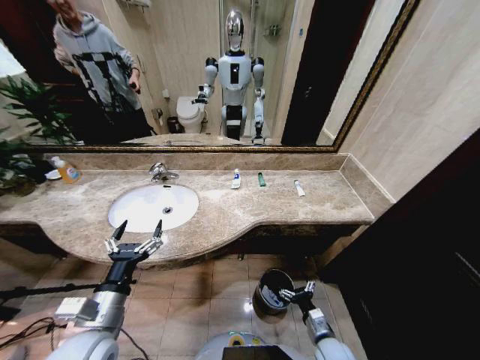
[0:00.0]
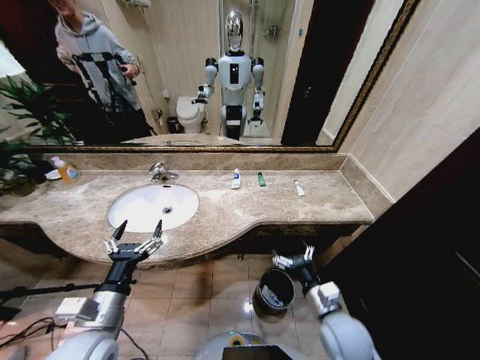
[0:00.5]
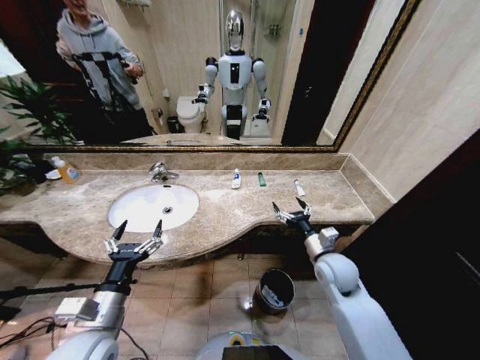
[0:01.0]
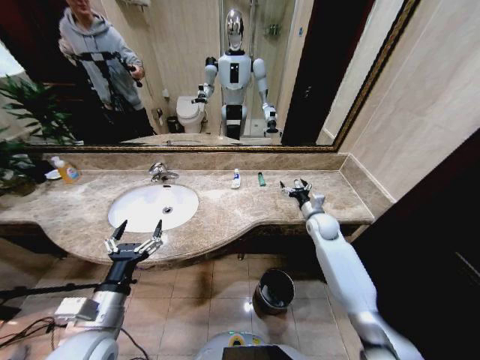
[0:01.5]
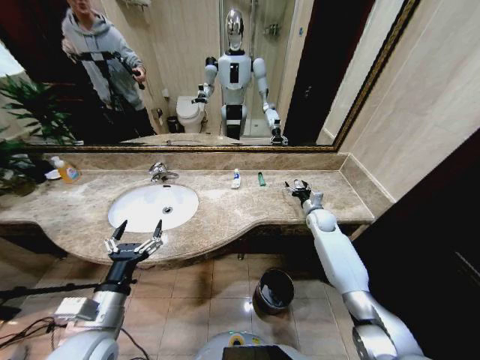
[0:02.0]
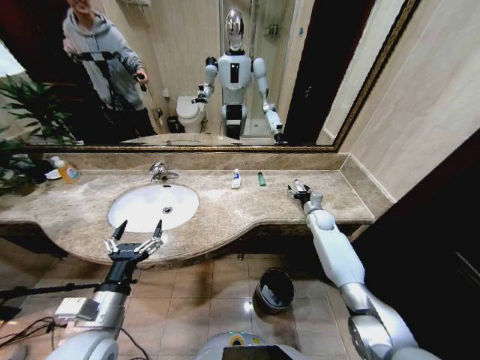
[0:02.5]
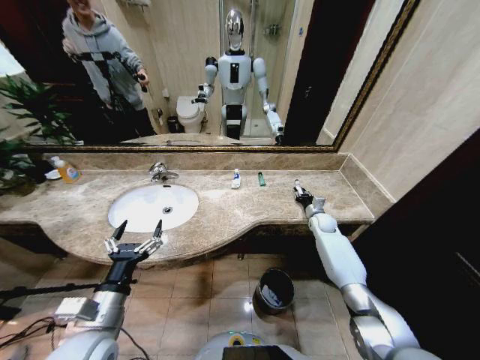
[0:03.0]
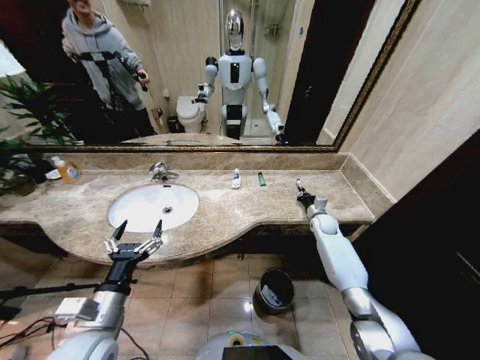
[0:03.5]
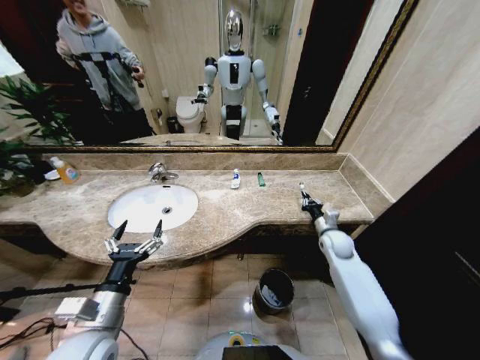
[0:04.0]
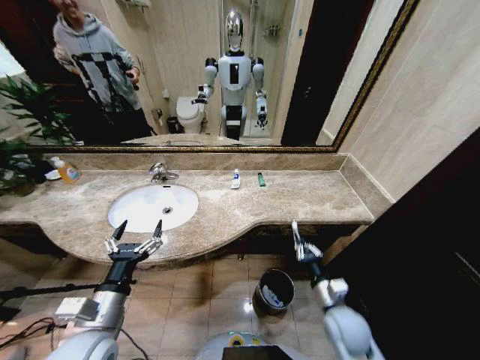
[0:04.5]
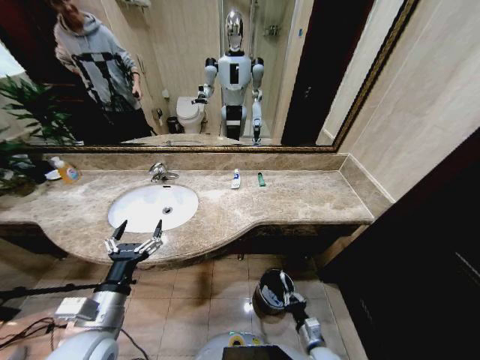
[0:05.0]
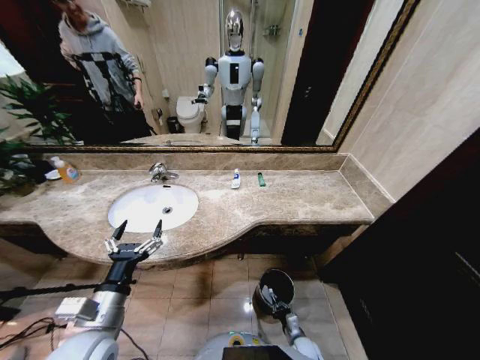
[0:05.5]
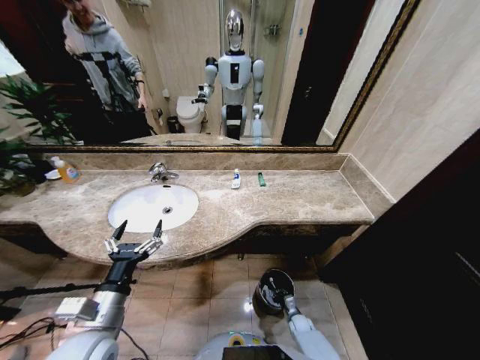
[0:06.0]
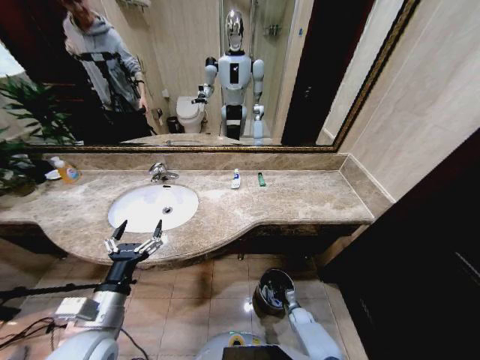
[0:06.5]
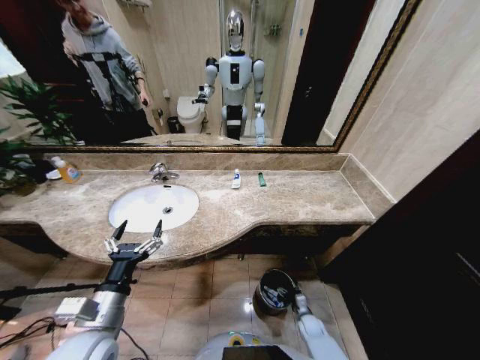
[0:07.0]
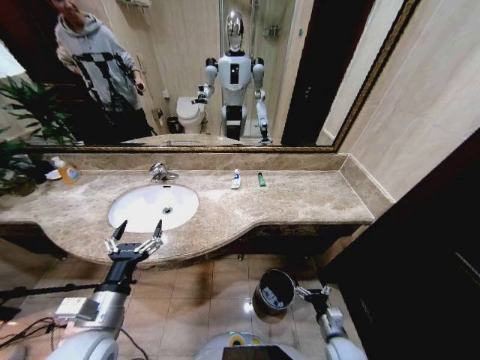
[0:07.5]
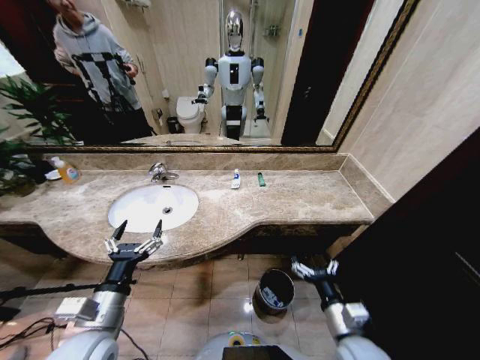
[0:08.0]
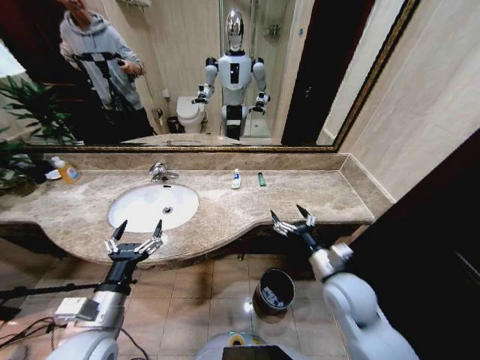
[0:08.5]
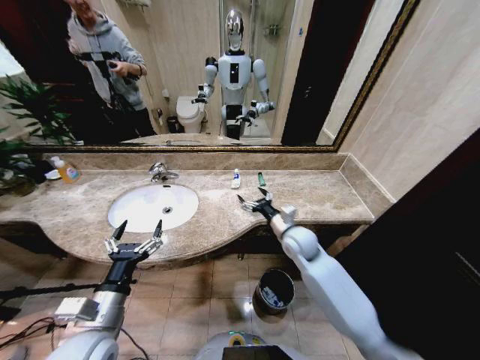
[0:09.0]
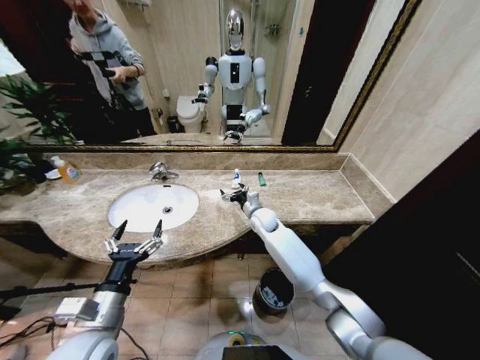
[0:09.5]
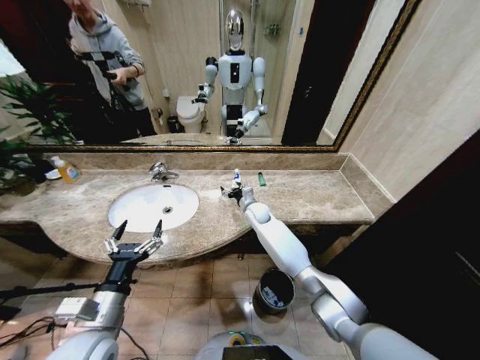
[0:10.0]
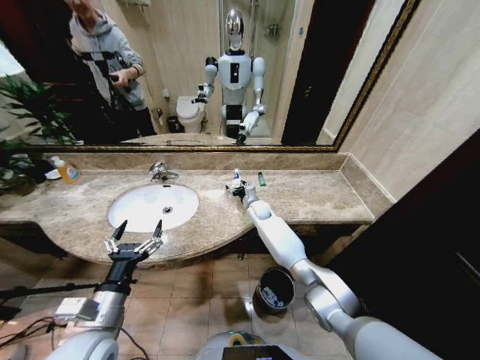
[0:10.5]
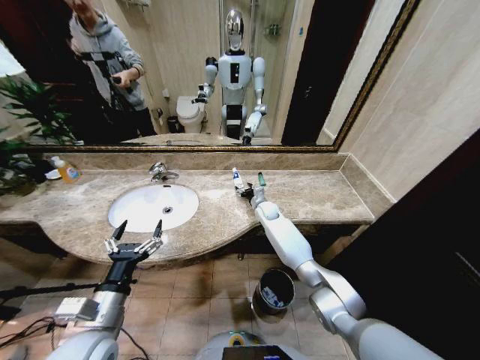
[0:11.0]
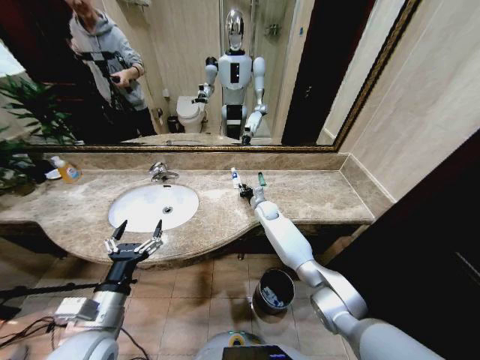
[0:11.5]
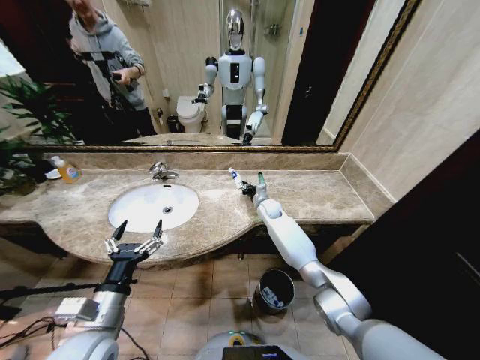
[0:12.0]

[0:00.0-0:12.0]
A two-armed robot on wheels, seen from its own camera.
Task of the whole recording: Pick up the trash from the sink and place it in the trash bin.
0:00.0 to 0:02.0: The right gripper travels forward and upward by about 40 cm.
0:02.0 to 0:04.0: The right gripper shifts some 10 cm backward, and closes.
0:04.0 to 0:06.0: The right gripper heads downward and backward, covering roughly 40 cm.
0:06.0 to 0:08.0: The right gripper heads upward, covering about 35 cm, and opens its fingers.
0:08.0 to 0:10.0: The right gripper moves forward and to the left, about 40 cm.
0:10.0 to 0:12.0: The right gripper travels to the right by about 5 cm, and closes its fingers.

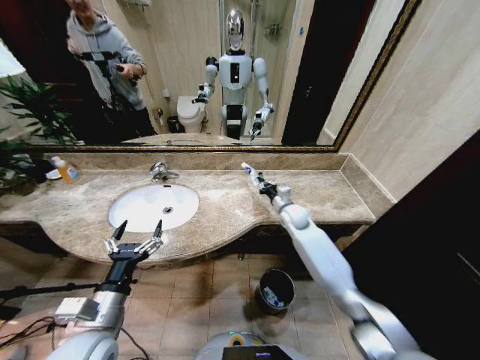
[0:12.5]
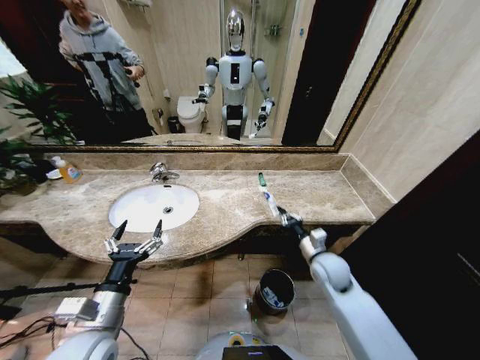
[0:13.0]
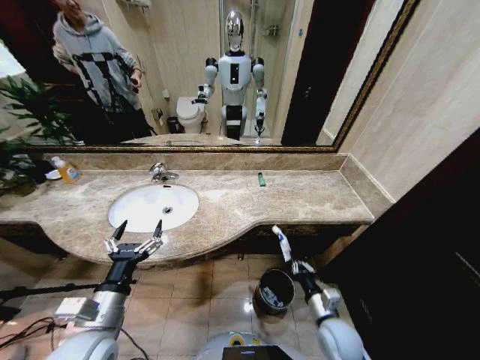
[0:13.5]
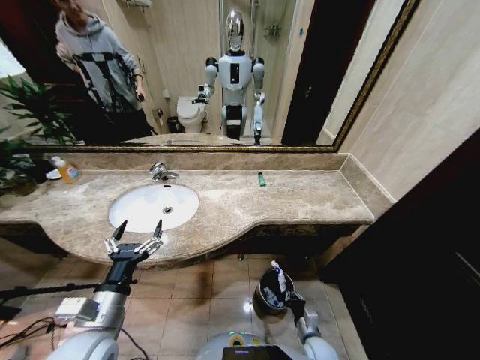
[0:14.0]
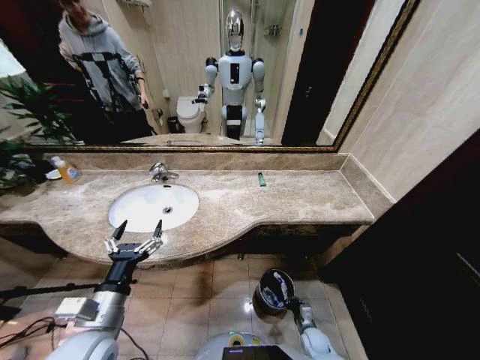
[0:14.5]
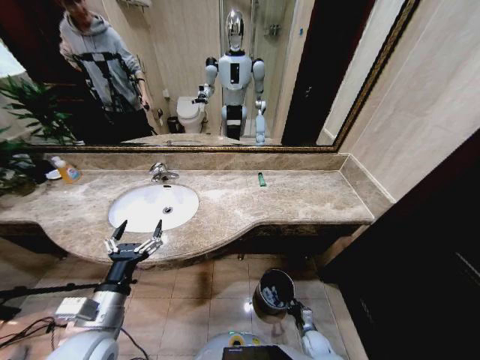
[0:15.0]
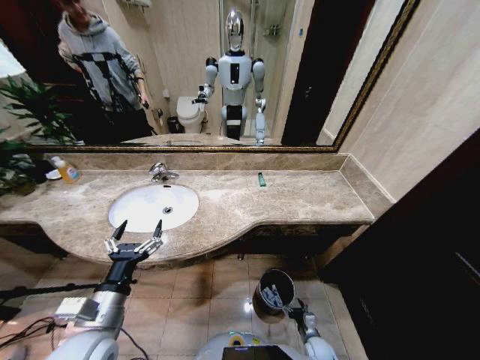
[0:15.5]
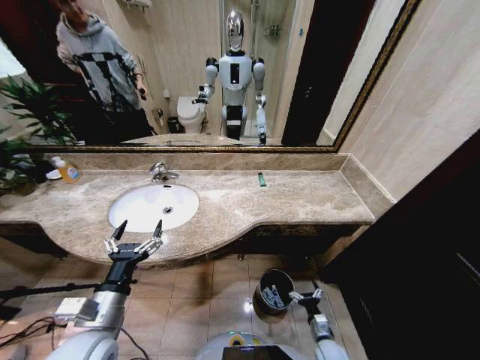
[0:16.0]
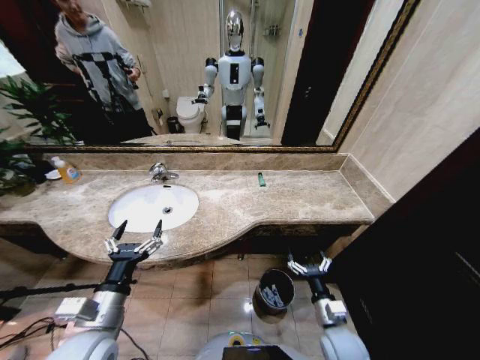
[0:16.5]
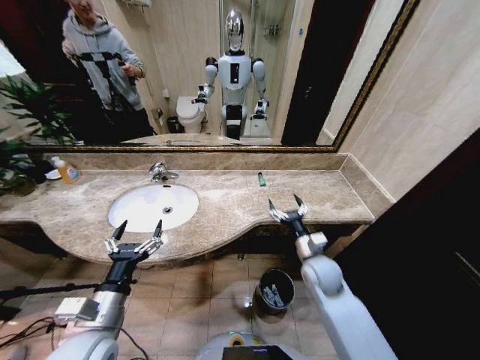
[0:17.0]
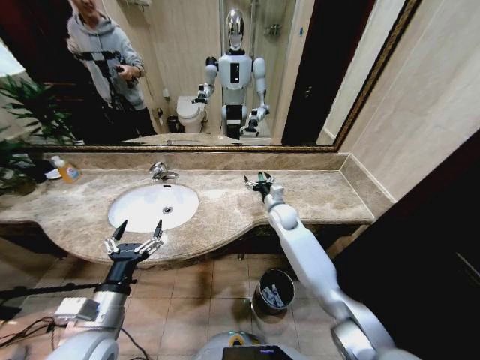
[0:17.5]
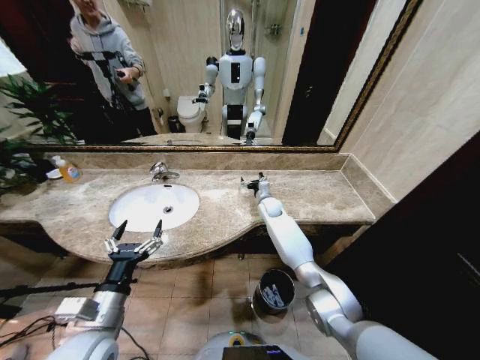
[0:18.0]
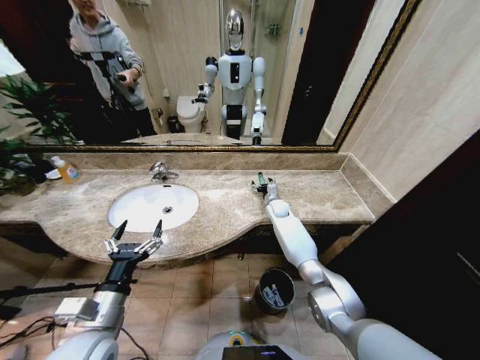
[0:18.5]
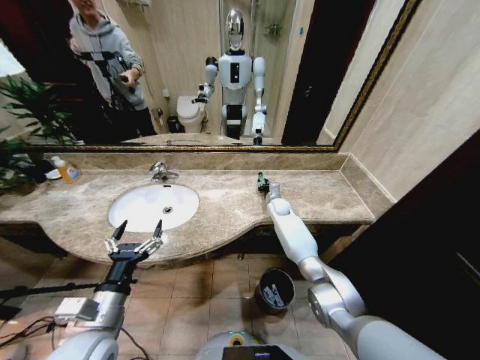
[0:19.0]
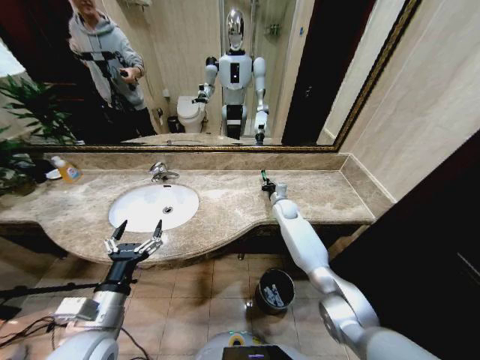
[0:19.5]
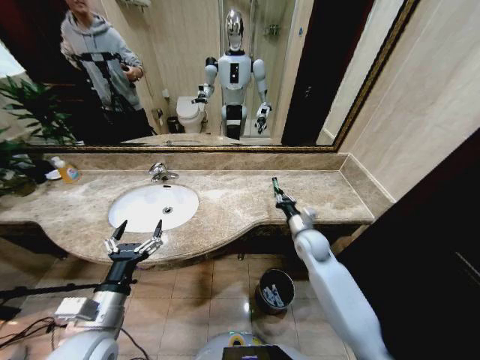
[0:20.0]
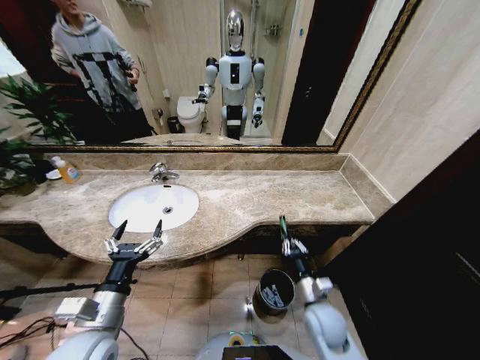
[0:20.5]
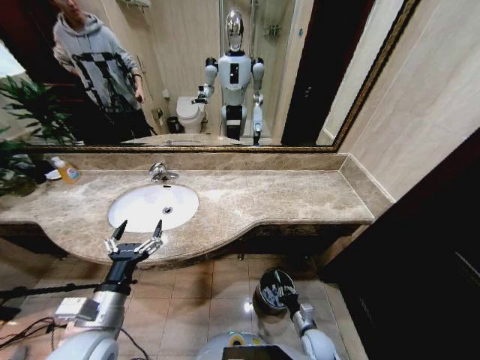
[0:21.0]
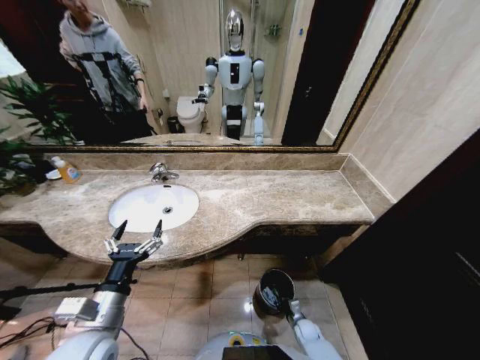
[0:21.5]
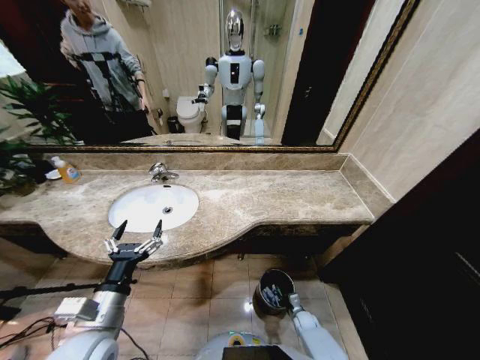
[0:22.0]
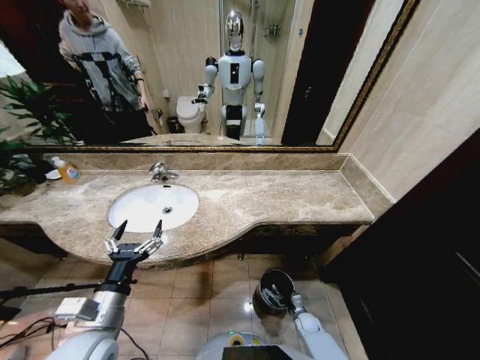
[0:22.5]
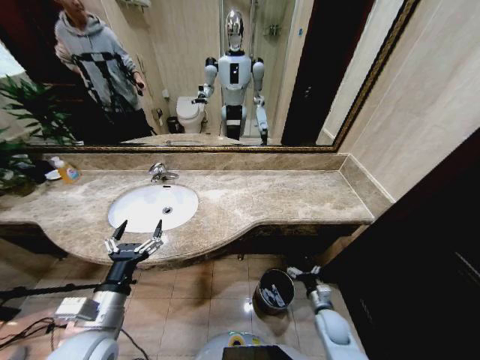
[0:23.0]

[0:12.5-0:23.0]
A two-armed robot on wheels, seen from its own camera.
Task of the whole recording: Pick up the trash from the sink and place it in the trash bin.
0:12.5 to 0:14.5: The right gripper heads downward and backward, covering some 50 cm.
0:14.5 to 0:16.5: The right gripper goes approximately 25 cm upward, and opens its fingers.
0:16.5 to 0:19.0: The right gripper is displaced forward by roughly 40 cm, and closes up.
0:19.0 to 0:21.0: The right gripper moves backward and downward, roughly 50 cm.
0:21.0 to 0:23.0: The right gripper reaches about 10 cm downward, then returns, and opens up.

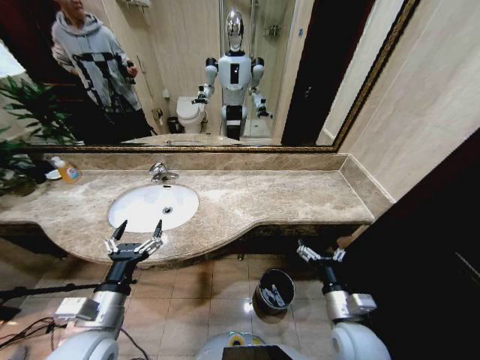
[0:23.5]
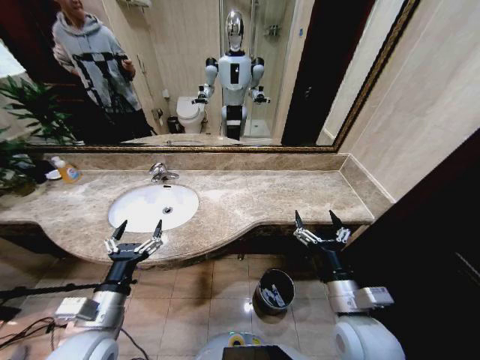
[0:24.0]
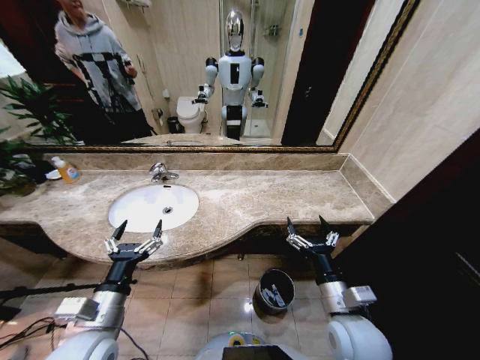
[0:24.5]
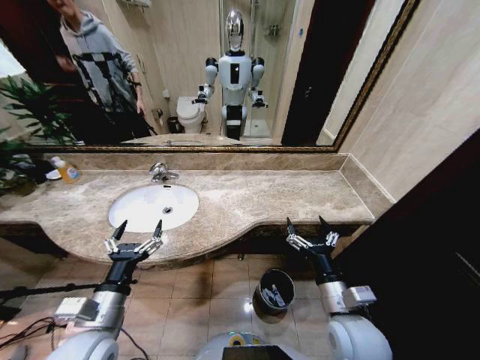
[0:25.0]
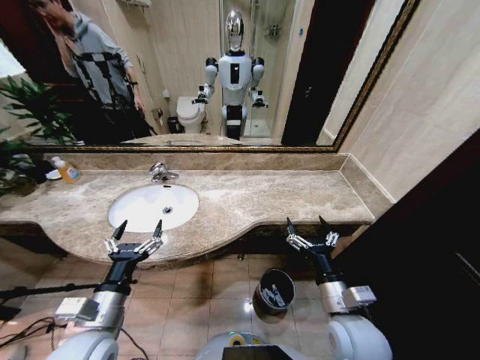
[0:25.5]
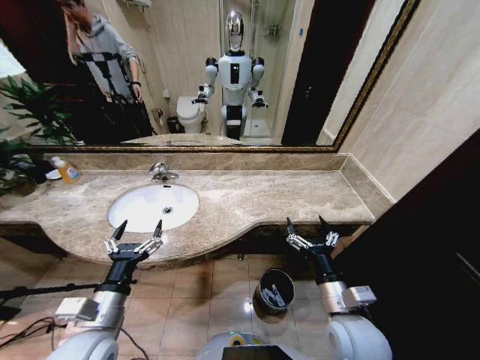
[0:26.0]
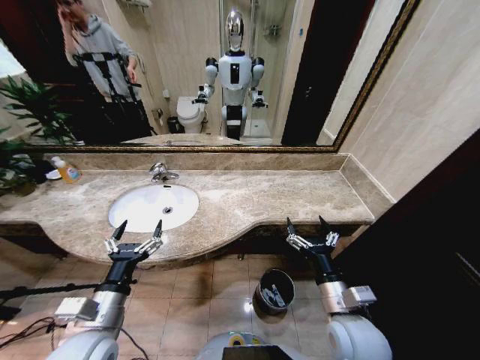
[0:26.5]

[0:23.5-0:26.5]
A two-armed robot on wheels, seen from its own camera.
Task of the whole recording: Pick up the trash from the sink and place it in the trash bin.
0:23.5 to 0:25.0: The right gripper changes place by approximately 5 cm.
0:25.0 to 0:26.5: The two grippers keep their place.
